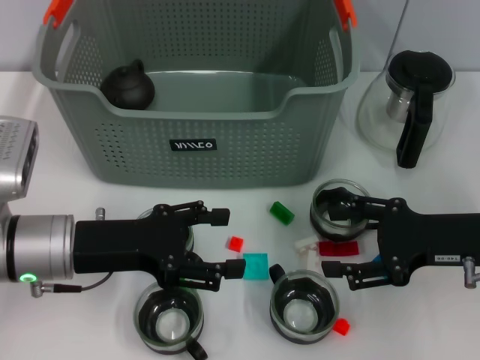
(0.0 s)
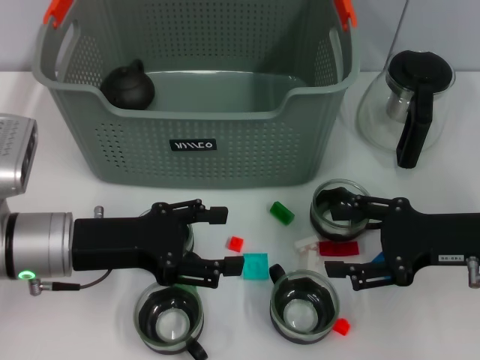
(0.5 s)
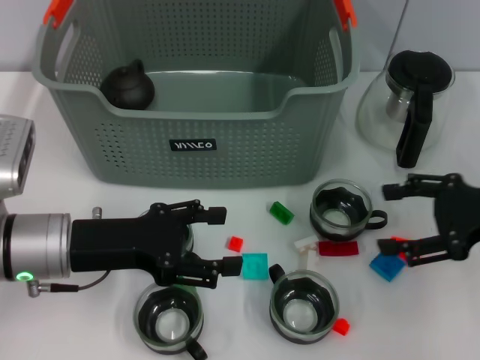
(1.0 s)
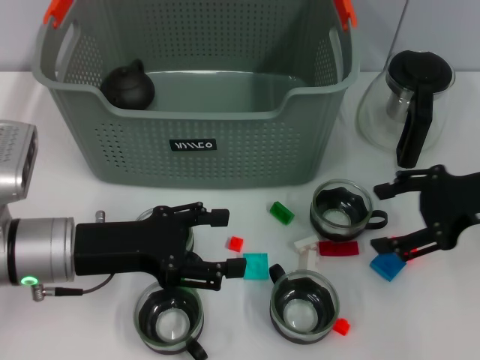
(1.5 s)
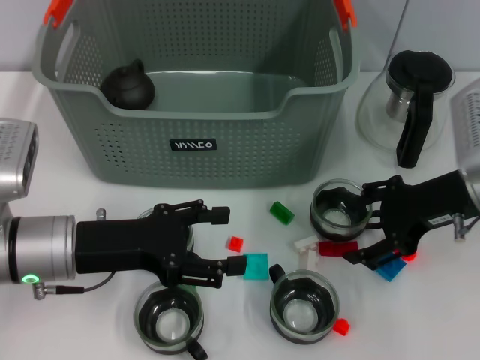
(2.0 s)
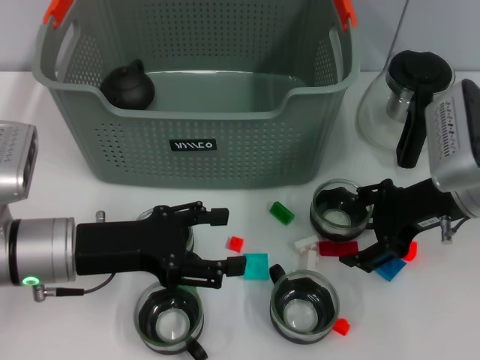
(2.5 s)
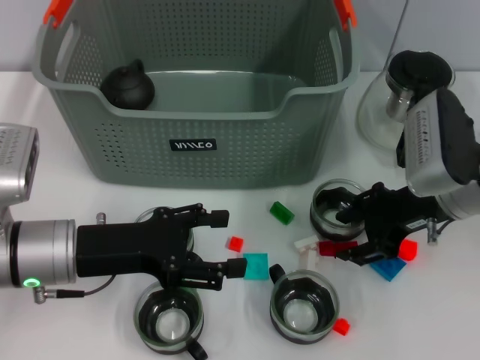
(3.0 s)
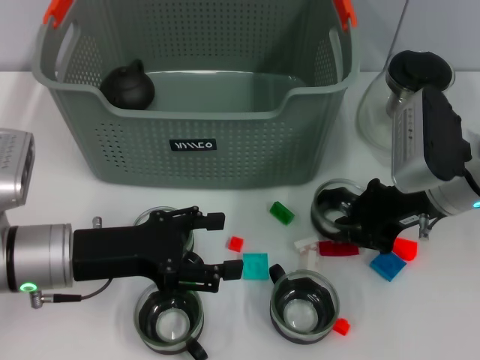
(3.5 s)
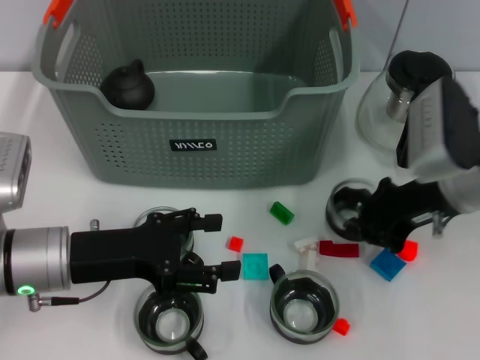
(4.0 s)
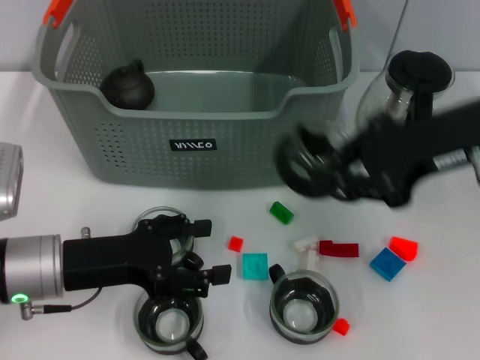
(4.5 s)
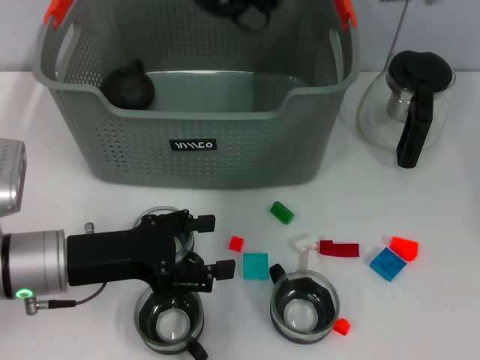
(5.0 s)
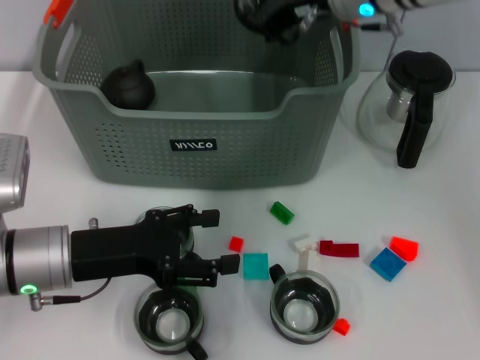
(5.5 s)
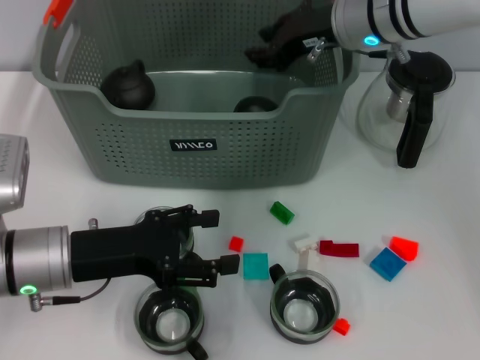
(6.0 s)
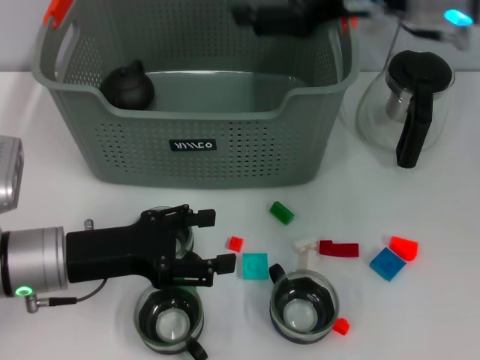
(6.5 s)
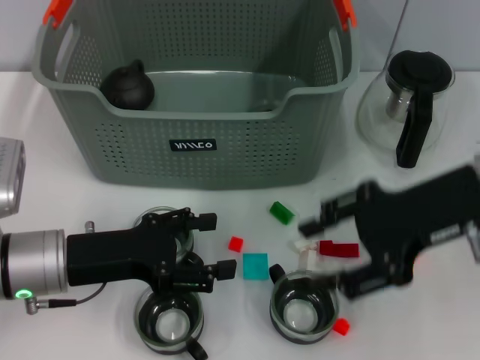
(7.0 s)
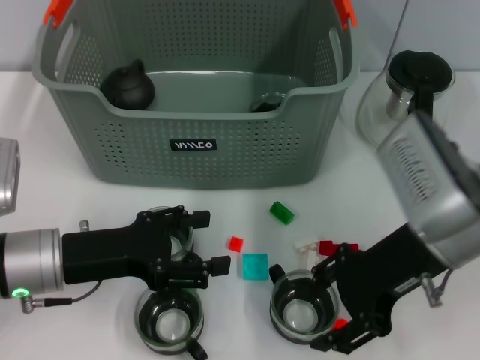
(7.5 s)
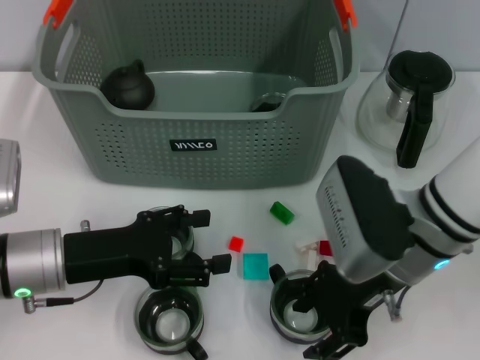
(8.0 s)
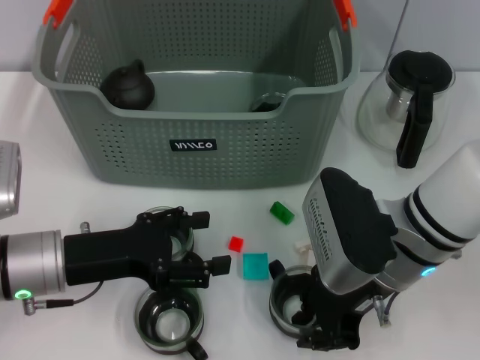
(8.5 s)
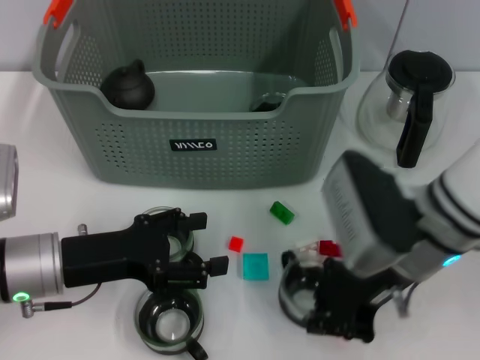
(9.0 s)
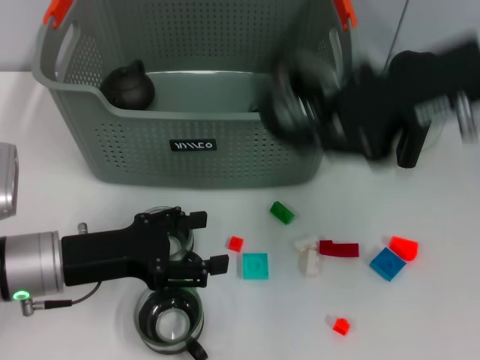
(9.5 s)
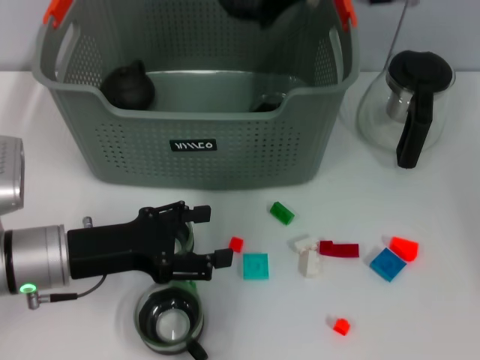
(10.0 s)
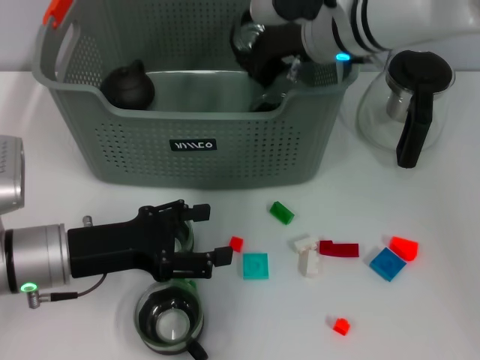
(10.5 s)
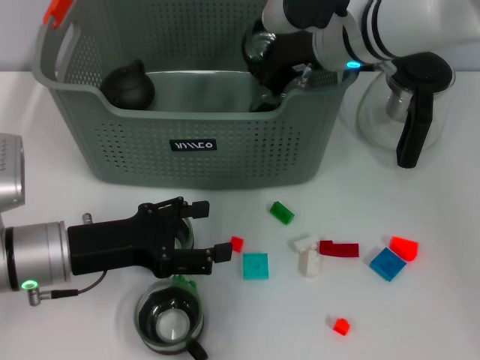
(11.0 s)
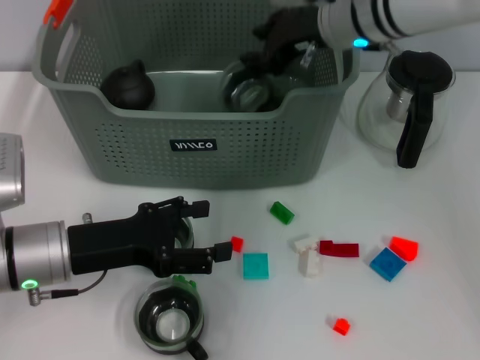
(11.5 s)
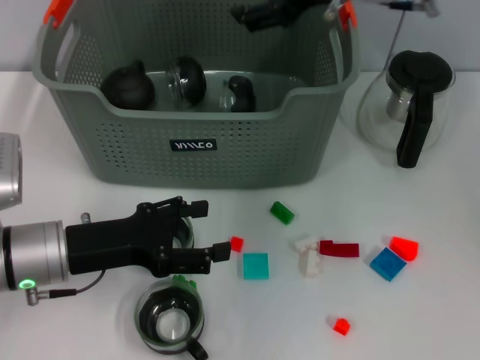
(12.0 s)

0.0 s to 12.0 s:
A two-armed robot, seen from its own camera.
Task of the whole recording: pick up the teacup on the table and place it into the storage bin, pick up the block on the table and place it into the storage bin.
Step, 0.0 to 3.5 s: Grasp the cup with right gripper.
Step, 4.0 to 6.0 s: Place the cup in the storage box with right gripper.
Step, 6.5 to 8.5 s: Grasp the cup with right gripper.
Step, 9.0 to 11.5 s: Place the cup in the storage box with right gripper.
0.0 to 2.0 s: The right gripper travels forward by about 5 cm.
2.0 to 4.0 s: The right gripper closes its fingers.
4.0 to 6.0 s: The right gripper is displaced forward, to the left and upward by some 15 cm.
6.0 to 8.0 s: The right gripper is displaced backward and downward by approximately 20 cm, and opens.
8.0 to 10.0 s: The right gripper moves forward and upward, some 20 cm, and closes its fingers.
10.0 to 12.0 s: The right gripper moves some 10 cm downward and comes back, and opens.

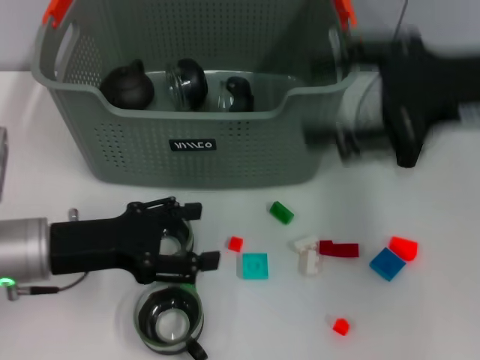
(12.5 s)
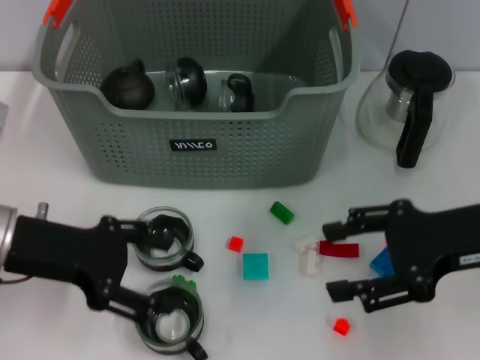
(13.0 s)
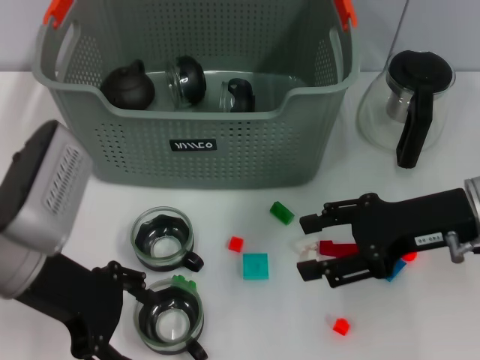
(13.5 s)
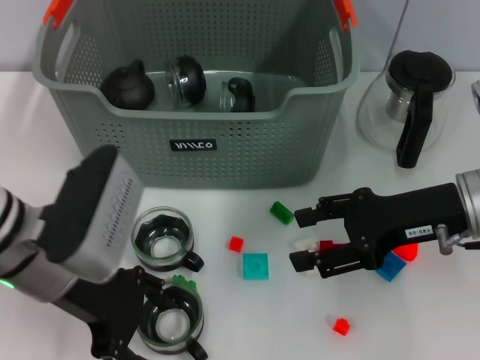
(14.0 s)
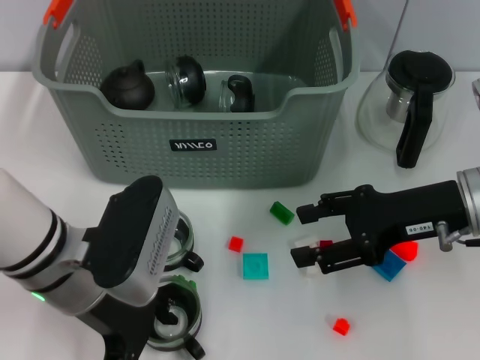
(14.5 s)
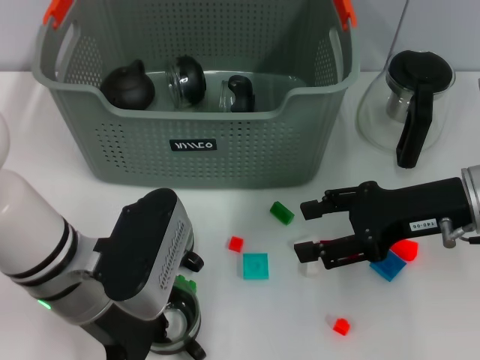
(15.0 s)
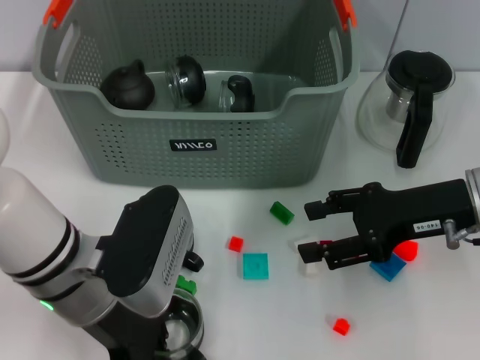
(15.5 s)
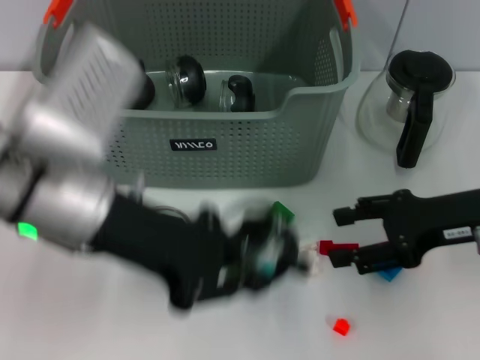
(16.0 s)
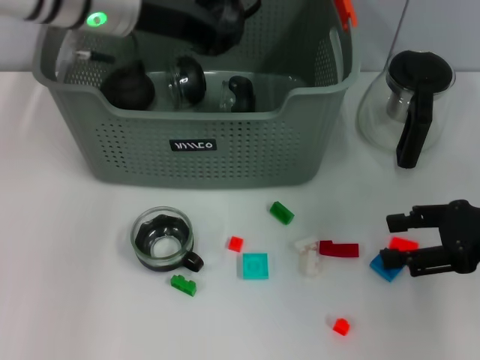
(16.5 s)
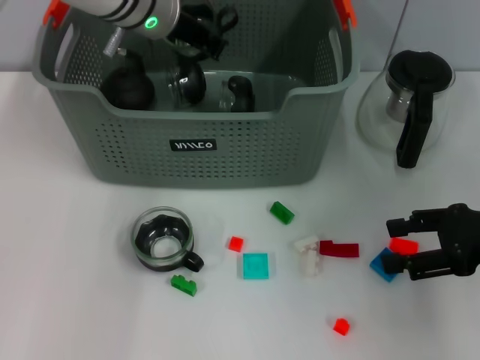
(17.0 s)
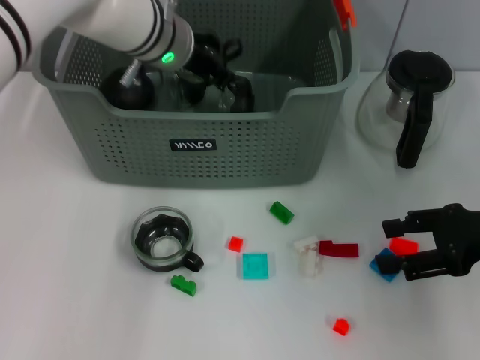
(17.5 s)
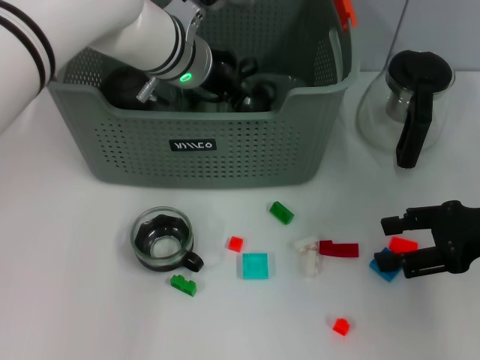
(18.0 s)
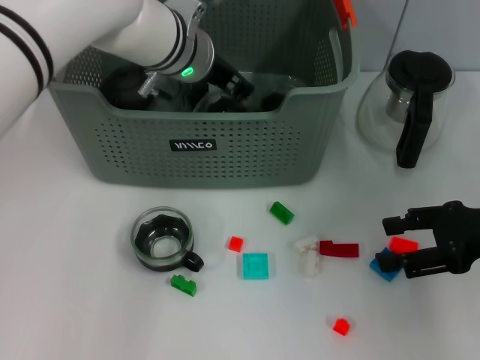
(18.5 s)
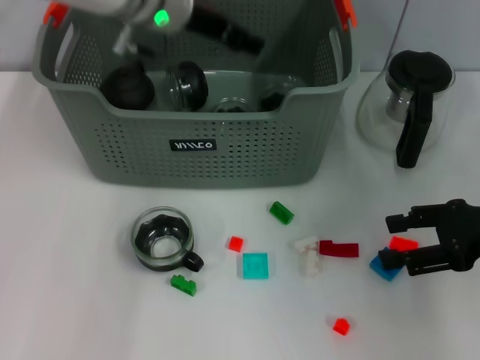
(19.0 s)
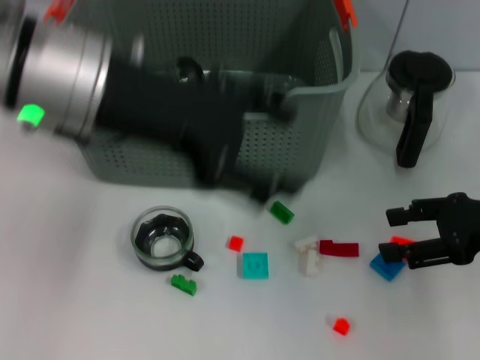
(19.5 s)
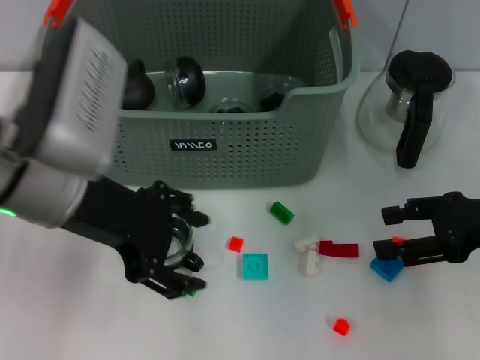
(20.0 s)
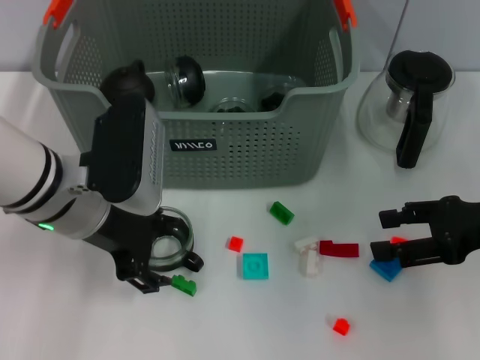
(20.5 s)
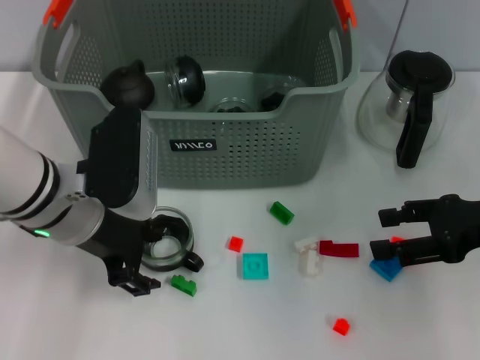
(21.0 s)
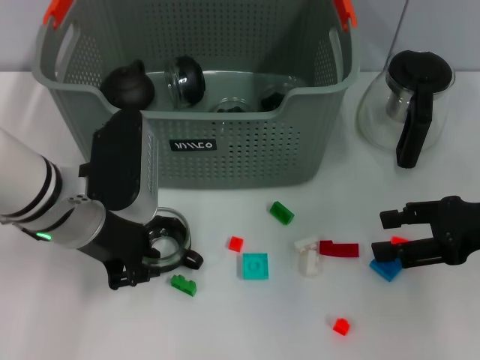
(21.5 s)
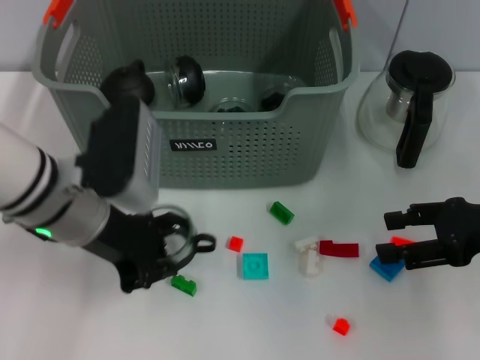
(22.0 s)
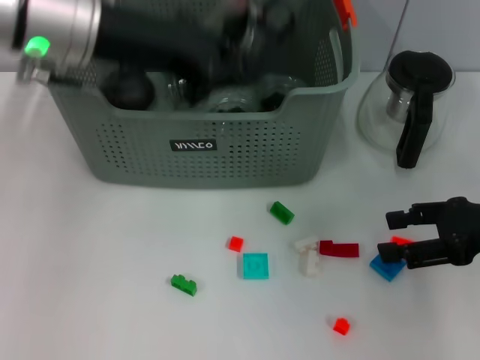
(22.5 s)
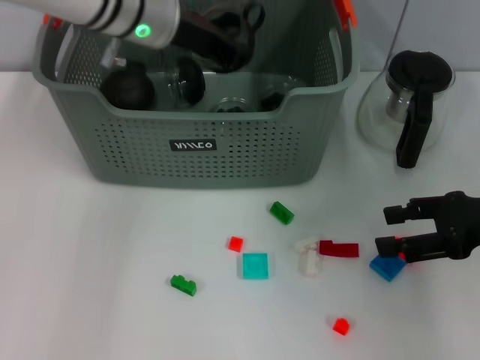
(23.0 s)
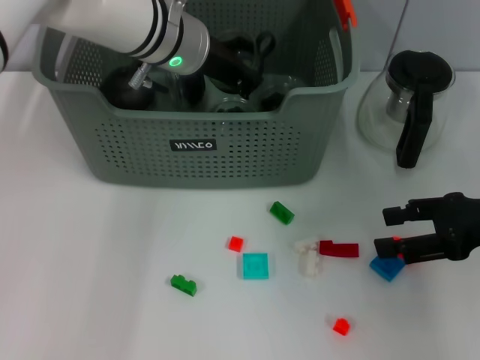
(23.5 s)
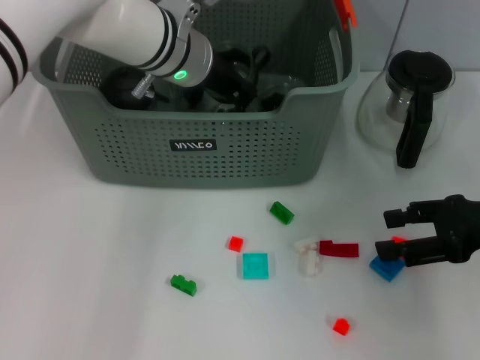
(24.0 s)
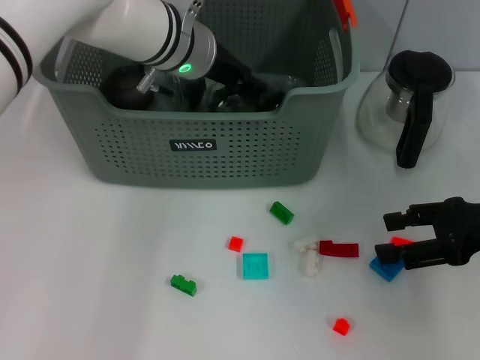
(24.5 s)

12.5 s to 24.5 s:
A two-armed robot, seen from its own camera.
Task of the whole recording: pick up the teacup on the table and place it into the storage bin, pick up the block on the table and place it into the storage bin.
Step, 12.5 to 15.0 s: Grasp the cup with left gripper.
Step, 15.5 to 19.0 s: Place the cup in the storage box with left gripper.
Step, 19.5 to 21.5 s: Grasp the cup with left gripper.
12.5 to 14.5 s: The right gripper goes some 10 cm downward; the left gripper moves to the right, roughly 5 cm.
14.5 to 16.5 s: The right gripper travels to the right by roughly 10 cm; the left gripper travels forward and upward by about 20 cm, and closes up.
16.5 to 18.5 s: The left gripper heads downward and to the right, covering roughly 10 cm.
18.5 to 20.5 s: The left gripper moves backward and to the left, roughly 15 cm, and opens.
20.5 to 22.5 s: The left gripper moves upward, approximately 15 cm, and closes its fingers.
22.5 to 24.5 s: The left gripper shifts some 15 cm forward, downward and to the right.

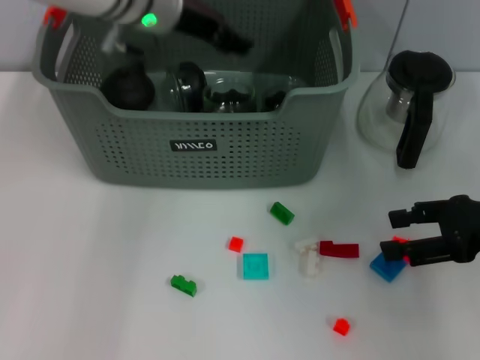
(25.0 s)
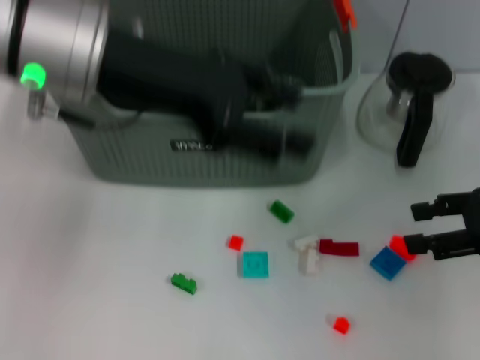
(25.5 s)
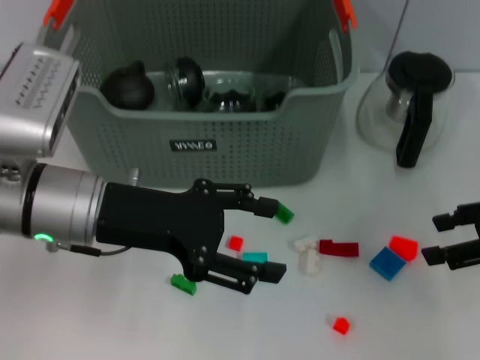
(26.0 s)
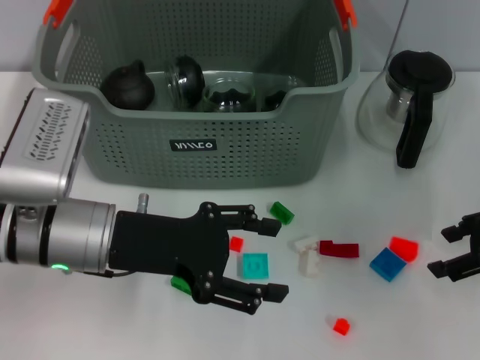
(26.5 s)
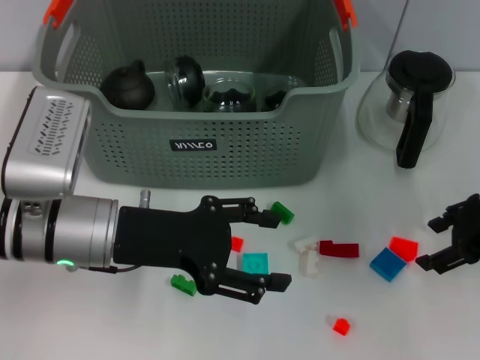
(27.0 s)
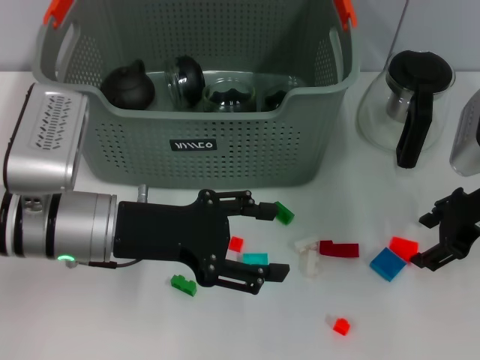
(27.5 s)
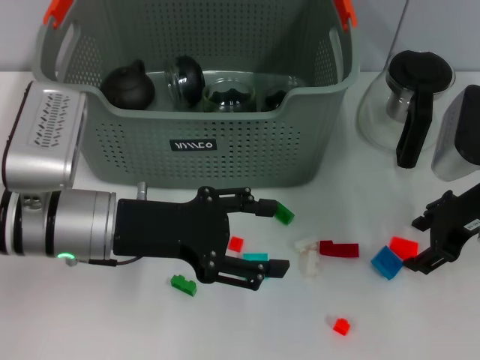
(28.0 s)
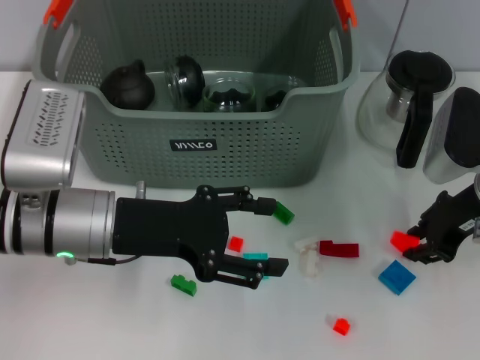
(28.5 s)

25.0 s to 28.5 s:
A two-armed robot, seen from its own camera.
Task of the whole recording: pick up the teacup on the table and place it into the storage bin, pick up the block on the table and place it into the storage bin.
25.0 to 27.0 s: The left gripper goes about 20 cm backward and downward.
27.0 to 28.5 s: The grippers stay close to where they were, moving slightly.
